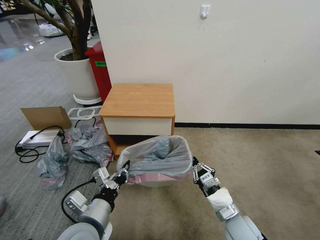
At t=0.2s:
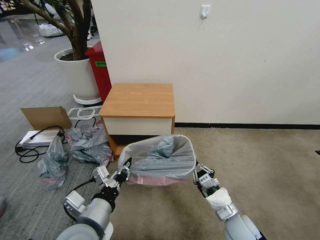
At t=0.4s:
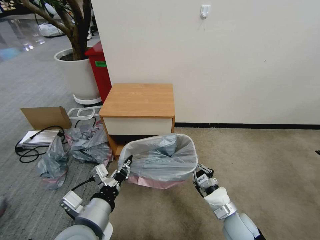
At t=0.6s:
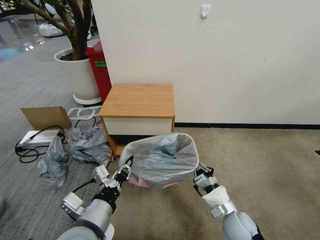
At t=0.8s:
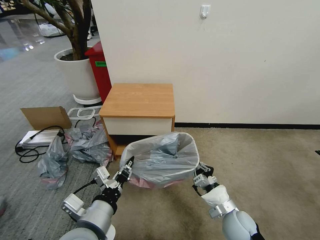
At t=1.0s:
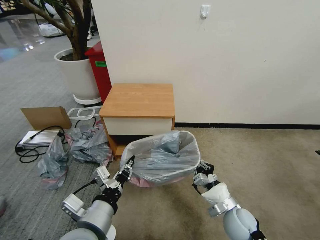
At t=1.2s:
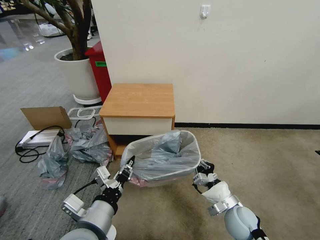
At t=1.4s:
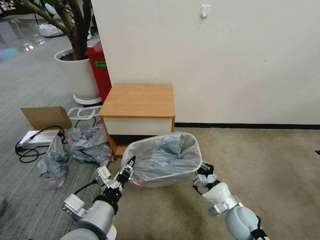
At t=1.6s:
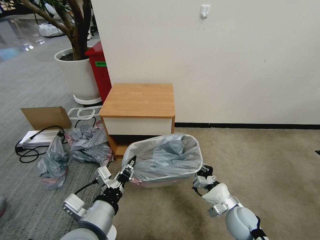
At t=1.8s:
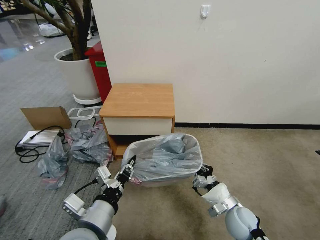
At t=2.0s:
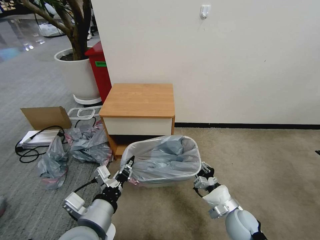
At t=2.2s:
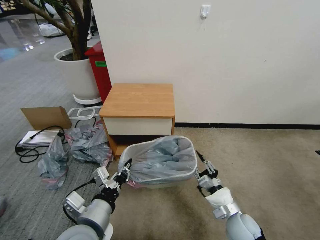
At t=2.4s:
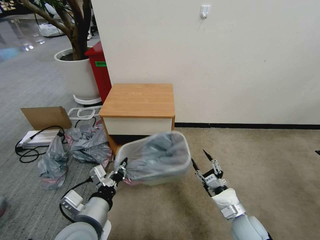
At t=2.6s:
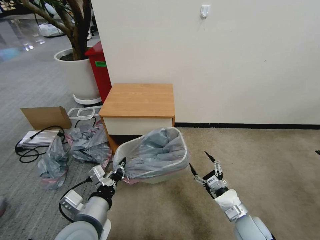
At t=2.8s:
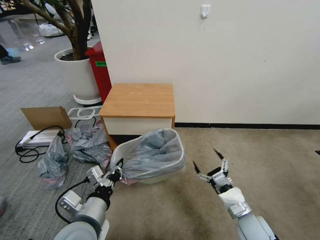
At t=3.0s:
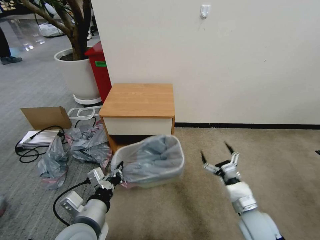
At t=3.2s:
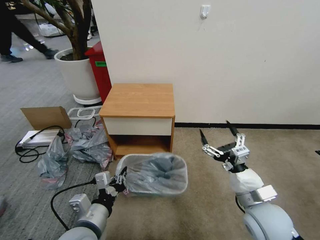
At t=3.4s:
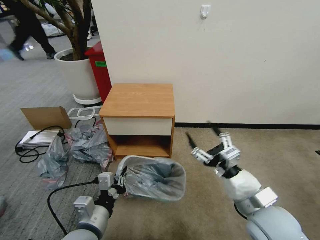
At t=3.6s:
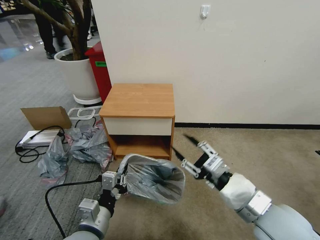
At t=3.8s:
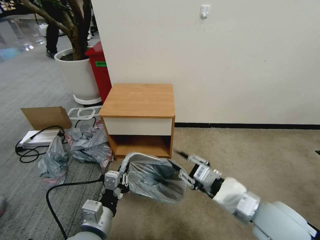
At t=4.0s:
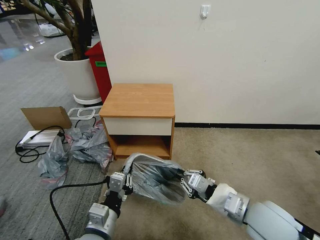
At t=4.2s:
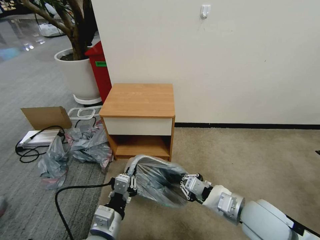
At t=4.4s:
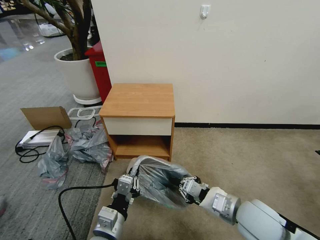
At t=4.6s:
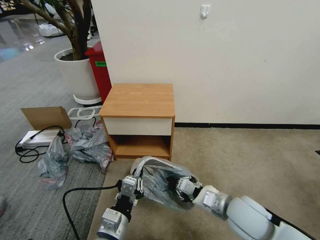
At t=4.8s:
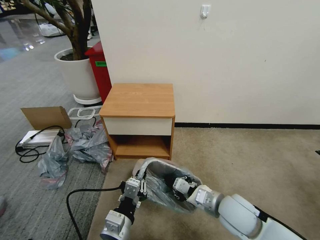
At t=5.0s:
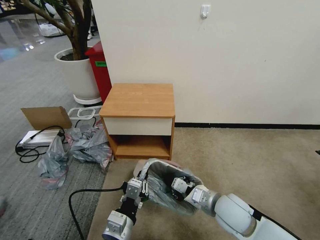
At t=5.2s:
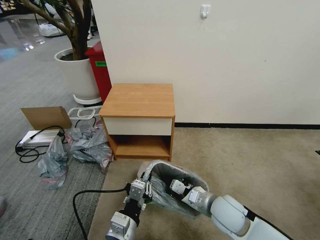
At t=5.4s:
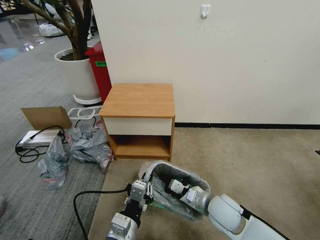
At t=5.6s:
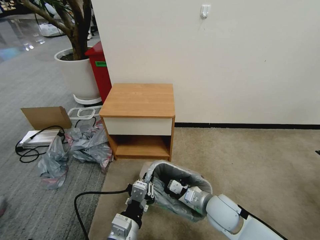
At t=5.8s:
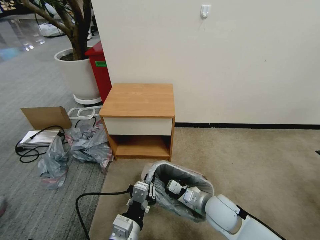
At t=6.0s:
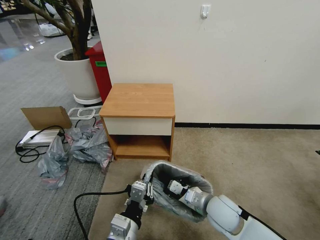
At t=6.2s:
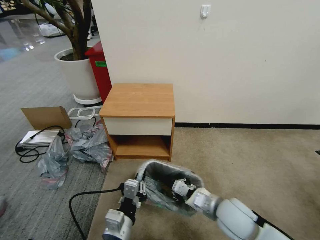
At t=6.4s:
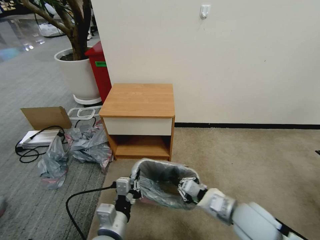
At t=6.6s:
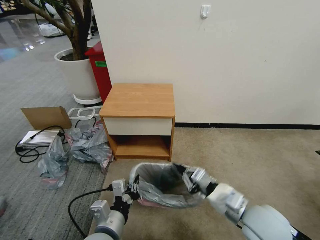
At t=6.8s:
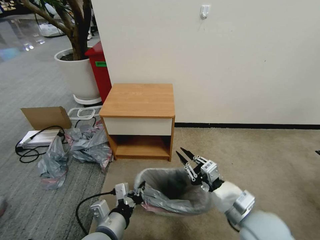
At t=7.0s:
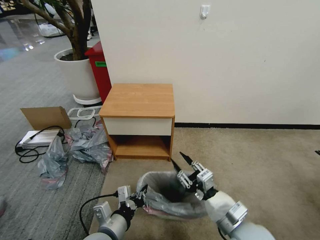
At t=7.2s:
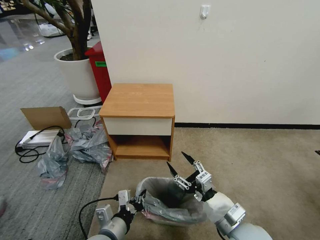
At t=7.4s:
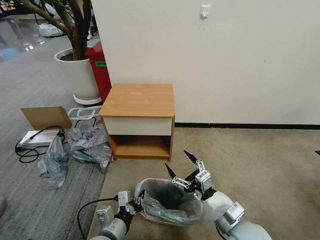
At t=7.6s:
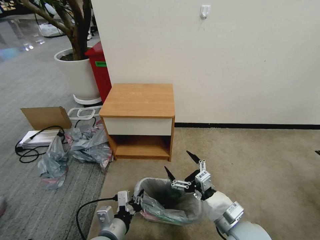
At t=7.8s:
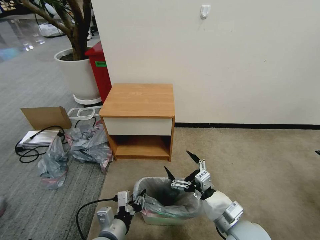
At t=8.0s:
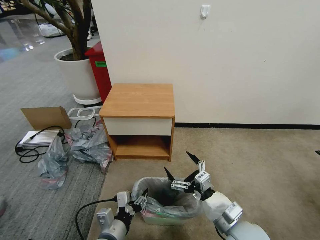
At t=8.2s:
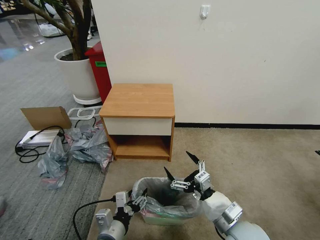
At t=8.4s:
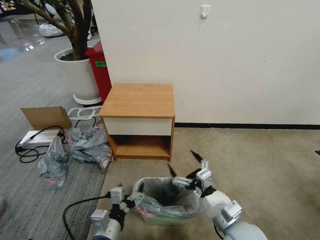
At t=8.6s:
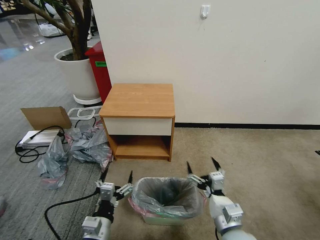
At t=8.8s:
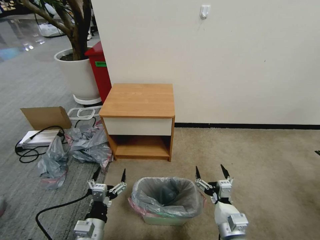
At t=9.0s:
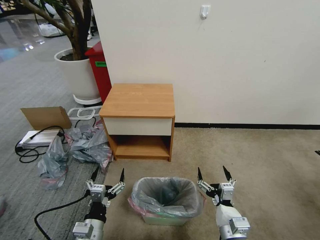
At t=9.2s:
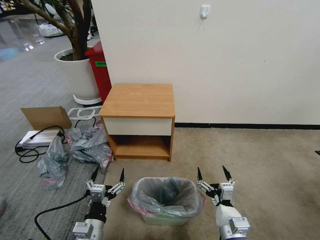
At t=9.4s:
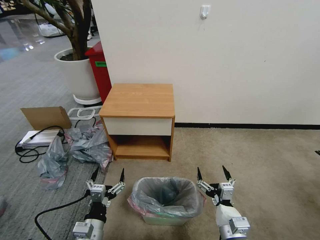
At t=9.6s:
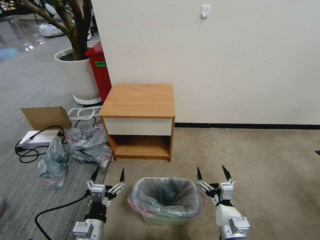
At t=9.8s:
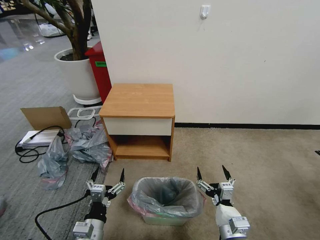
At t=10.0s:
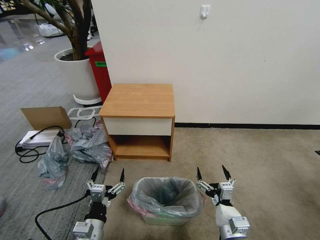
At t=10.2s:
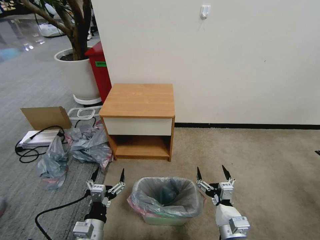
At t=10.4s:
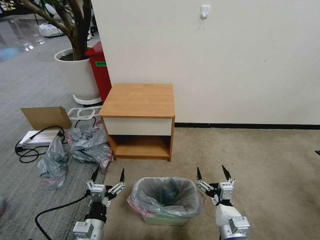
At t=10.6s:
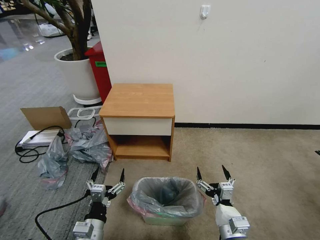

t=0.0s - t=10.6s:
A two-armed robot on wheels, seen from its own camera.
Task of the whole recording: Pick up the garbage bag from the table and place it over the trash can.
t=1.6s - t=3.0s: The right gripper shifts by approximately 5 cm, and opens its fingers.
t=3.0s - t=4.6s: The left gripper ends up approximately 5 cm from where it was. Meanwhile the right gripper travels upward and to the left by about 10 cm, and closes.
t=4.6s - t=6.0s: The right gripper moves downward, approximately 5 cm.
t=6.0s - t=7.6s: The left gripper shifts roughly 5 cm downward; the right gripper travels backward and upward by some 10 cm, and opens.
t=7.6s - t=9.0s: The left gripper moves about 5 cm, and opens. Meanwhile the right gripper travels downward by roughly 10 cm.
t=9.0s - t=10.6s: Neither gripper changes place.
